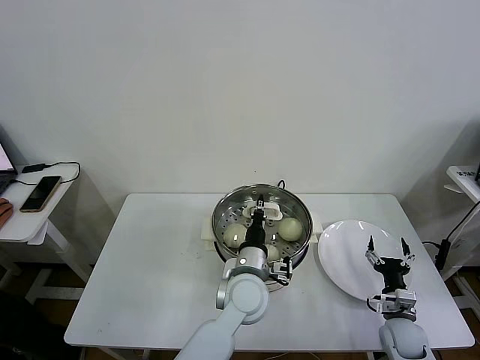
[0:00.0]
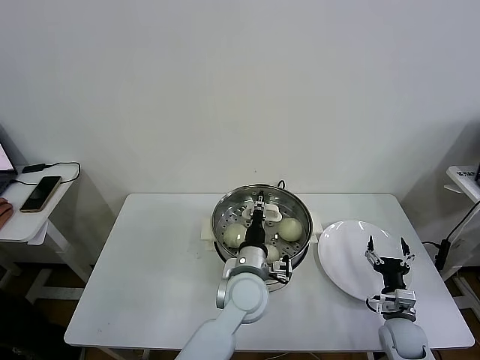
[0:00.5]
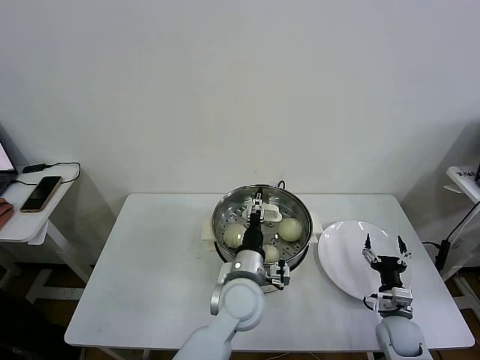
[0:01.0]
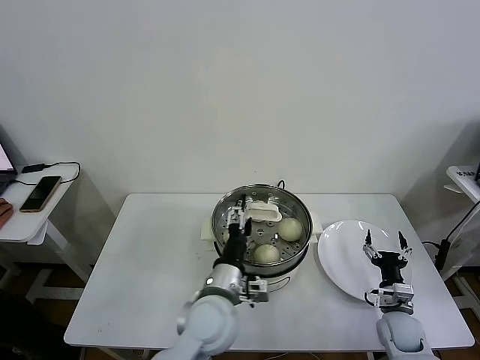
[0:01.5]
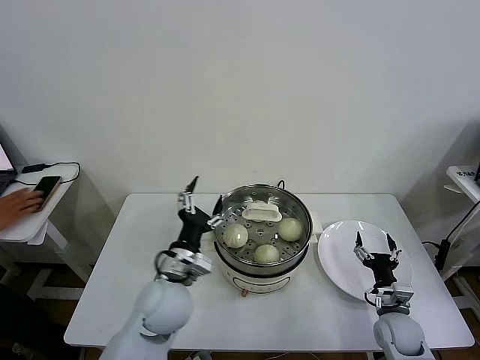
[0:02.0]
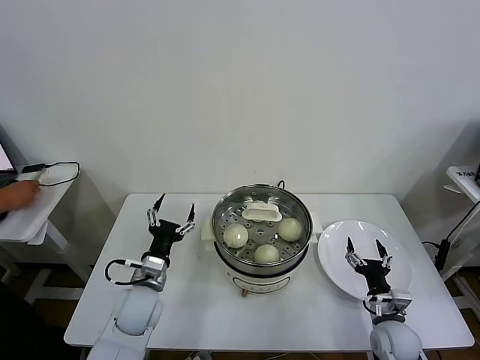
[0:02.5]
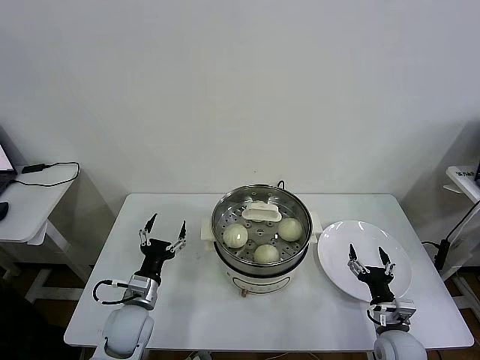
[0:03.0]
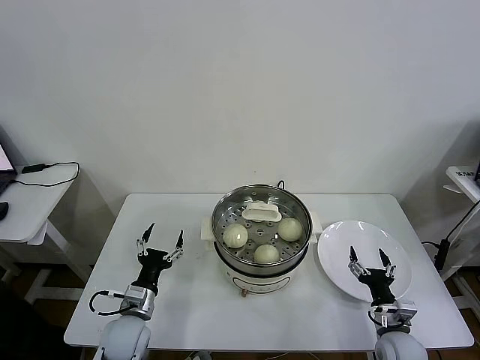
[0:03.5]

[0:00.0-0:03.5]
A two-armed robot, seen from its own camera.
Task of the whole recording: take steamed baozi put them in steamer then cover it.
0:00.0 to 0:02.0: The left gripper moves to the left, about 15 cm, and opens up.
0:02.0 to 0:03.5: The left gripper heads downward and to the left, covering some 20 cm.

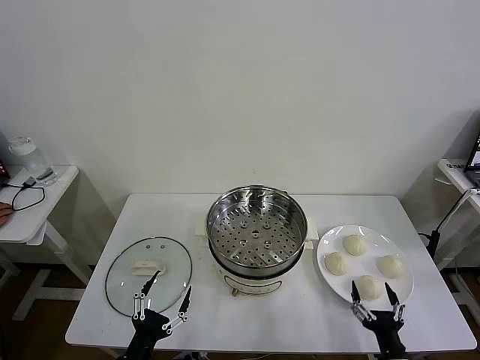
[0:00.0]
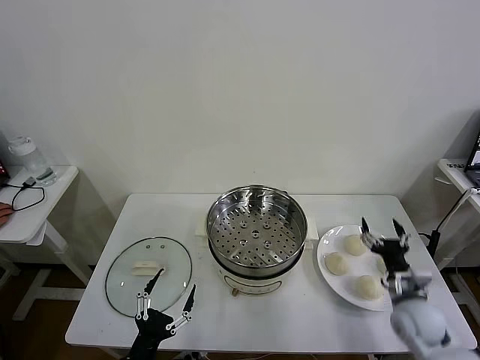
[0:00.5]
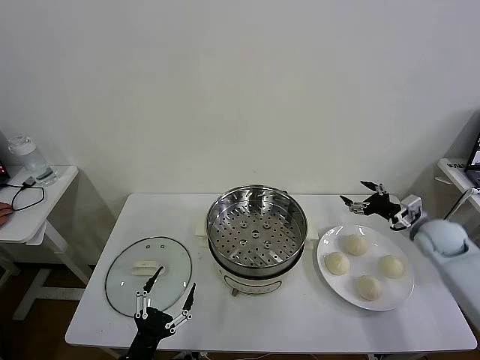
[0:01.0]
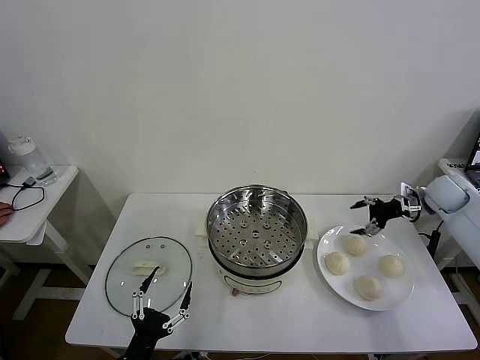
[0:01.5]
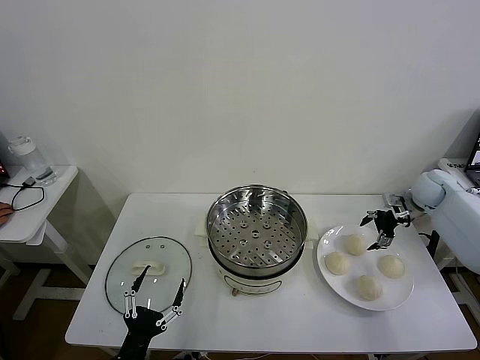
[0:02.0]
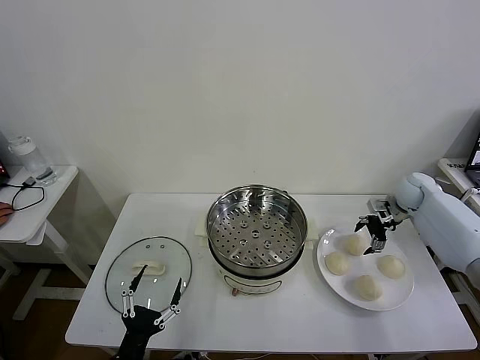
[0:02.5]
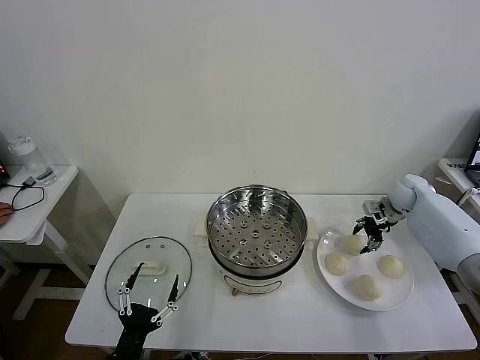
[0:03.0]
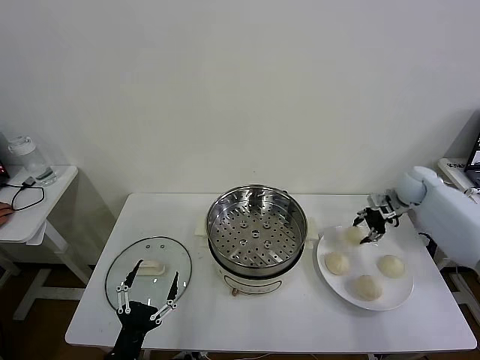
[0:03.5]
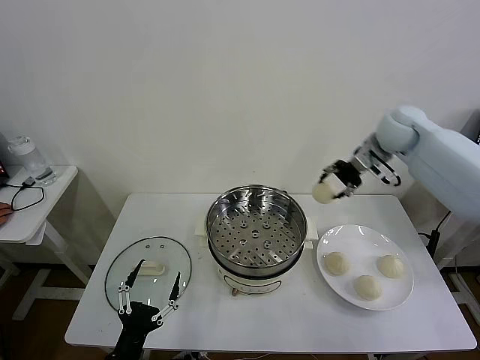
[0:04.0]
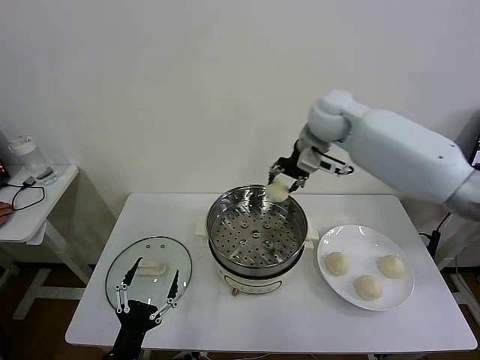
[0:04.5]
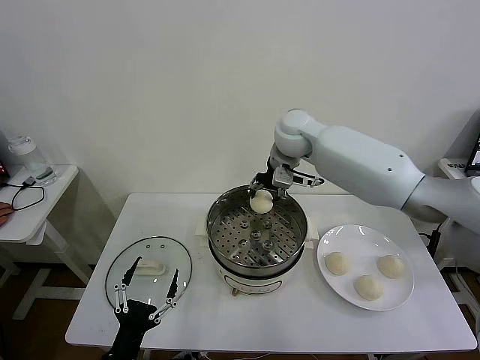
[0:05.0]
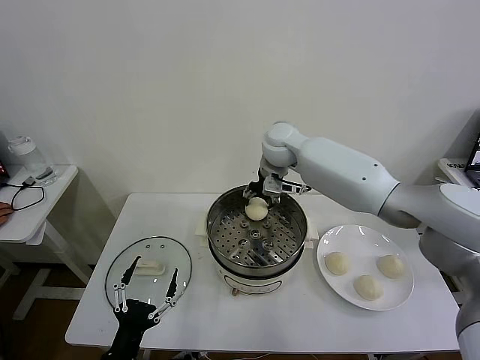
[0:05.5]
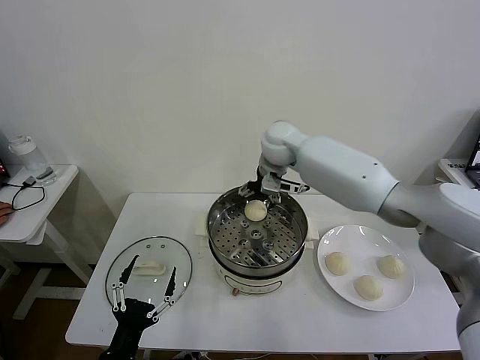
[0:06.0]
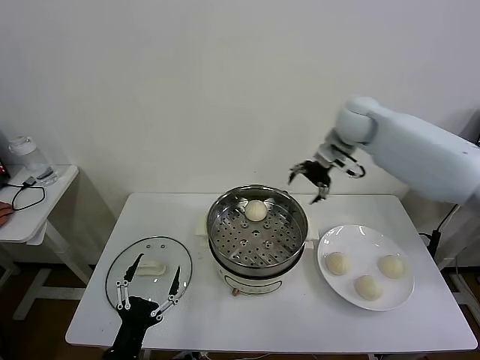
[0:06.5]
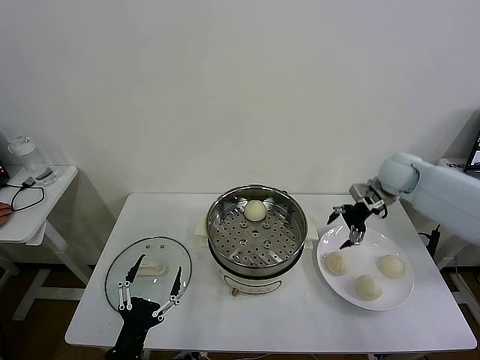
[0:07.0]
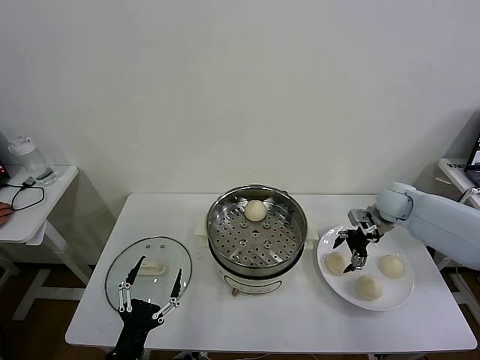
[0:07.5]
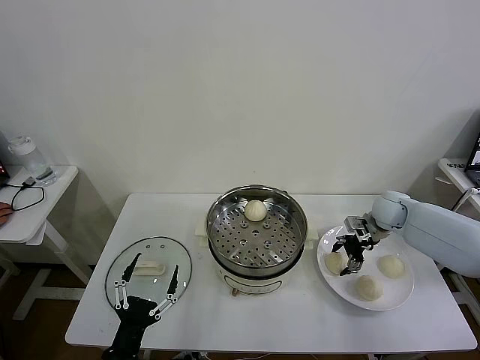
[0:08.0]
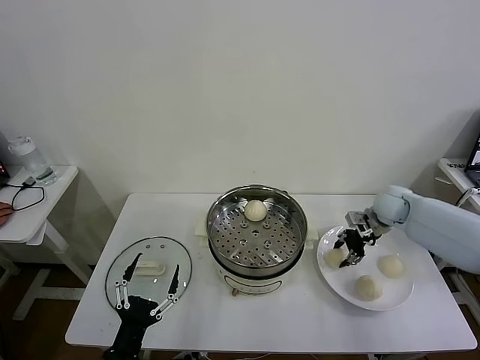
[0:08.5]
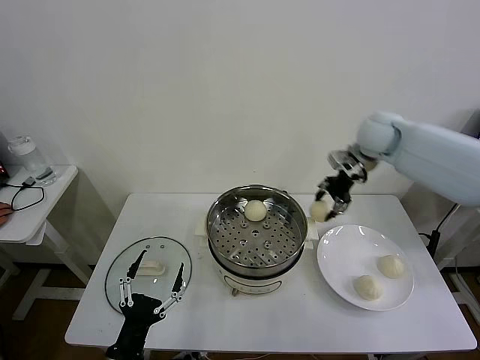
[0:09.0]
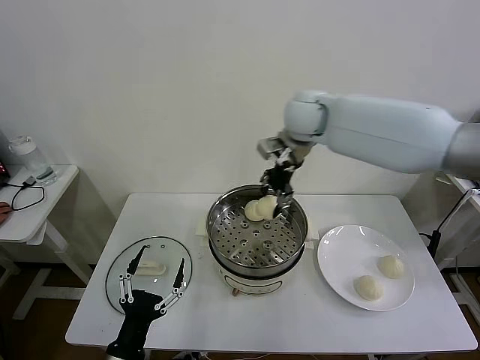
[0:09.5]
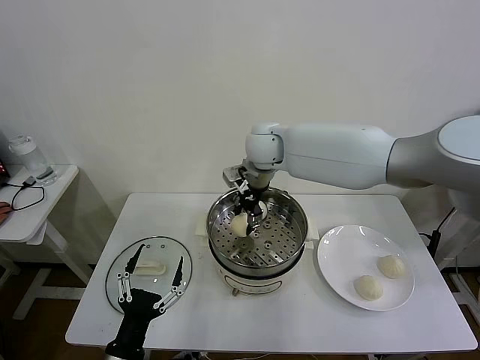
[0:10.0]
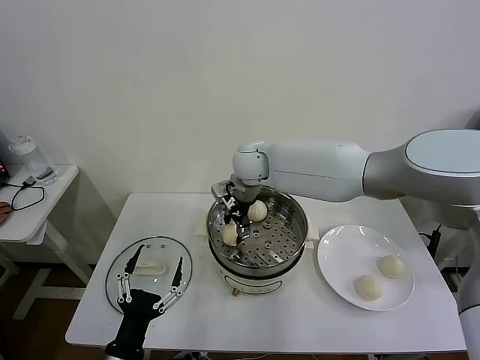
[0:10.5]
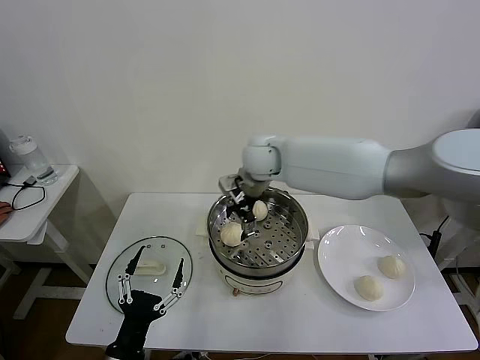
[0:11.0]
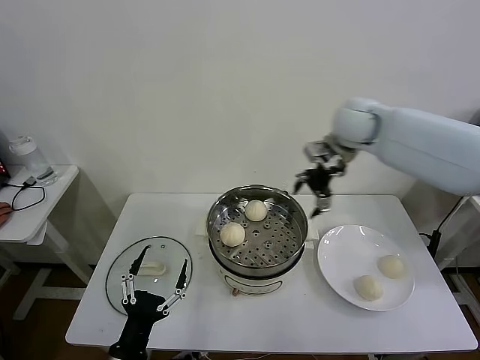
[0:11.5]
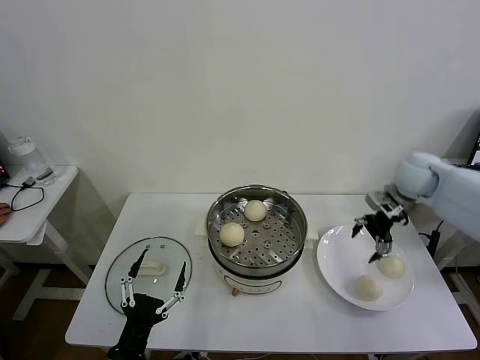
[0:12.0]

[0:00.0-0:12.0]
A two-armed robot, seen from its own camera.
Task of the whole recording: take steamed baozi put them in steamer then cover it.
Step, 0:00.0 to 0:03.0: Grasp the baozi in the plate with right gripper.
Step, 0:03.5 to 0:05.5: Place the baozi on the steamer with right gripper.
Step, 0:06.0 to 0:08.0: Grasp the baozi in the plate with right gripper.
Step, 0:08.5 to 0:11.0: Place the baozi on the steamer with right gripper.
0:02.0 to 0:04.0: The right gripper is displaced upward and to the left by about 25 cm, and closes its fingers.
0:04.0 to 0:06.0: The right gripper is displaced to the left by approximately 20 cm, and opens.
0:06.0 to 0:08.0: The right gripper heads to the right and downward, covering about 35 cm, and closes up.
0:08.0 to 0:10.0: The right gripper heads to the left and upward, covering some 40 cm.
0:10.0 to 0:12.0: The right gripper heads to the right, covering about 35 cm, and opens its fingers.

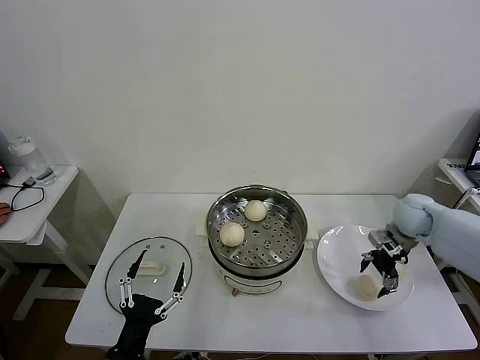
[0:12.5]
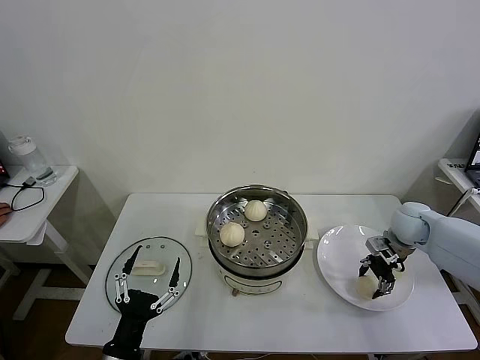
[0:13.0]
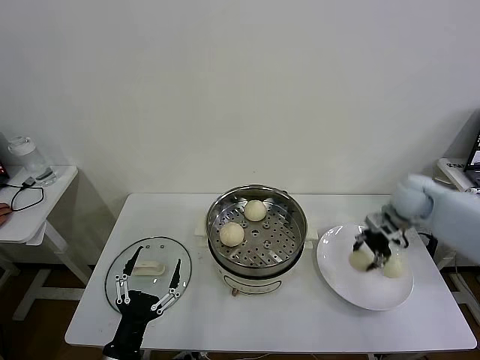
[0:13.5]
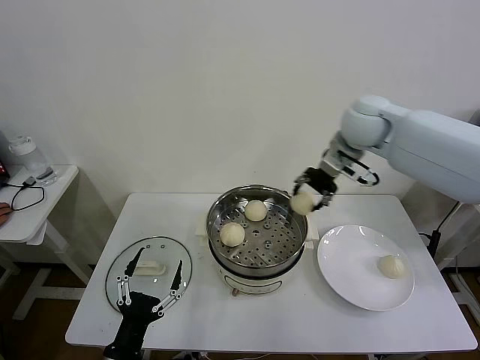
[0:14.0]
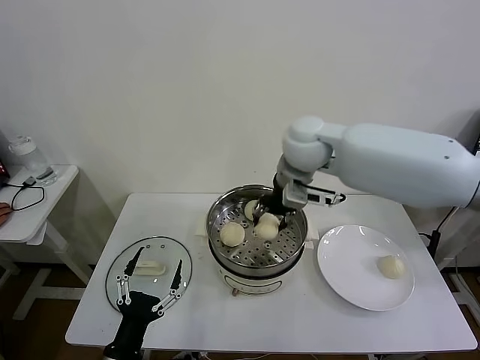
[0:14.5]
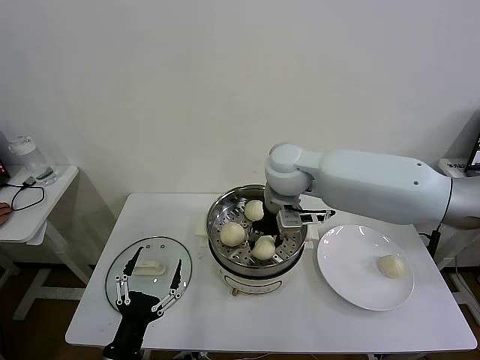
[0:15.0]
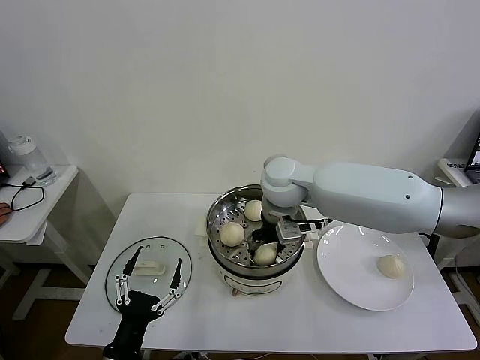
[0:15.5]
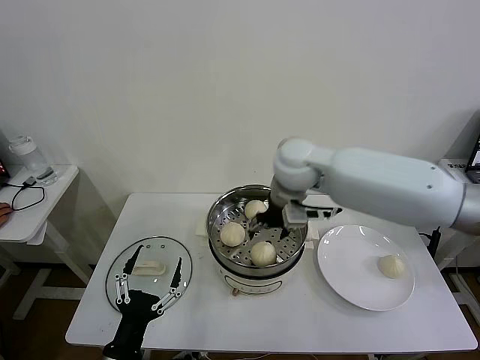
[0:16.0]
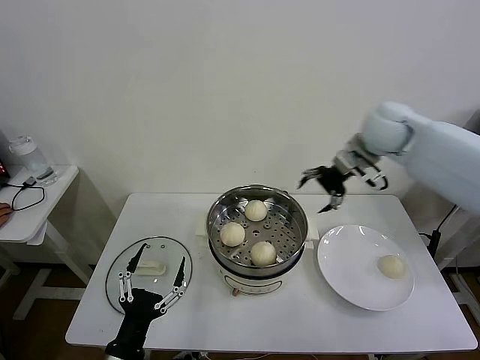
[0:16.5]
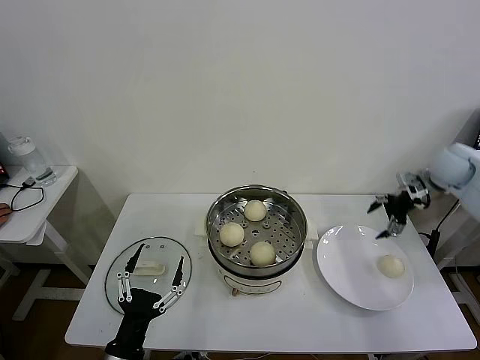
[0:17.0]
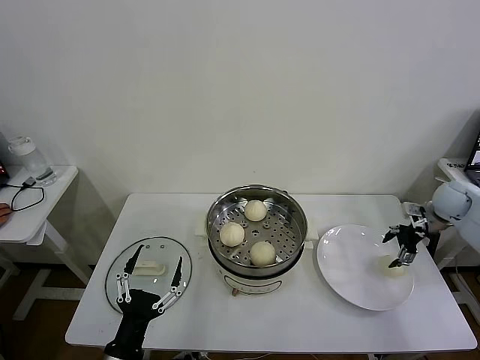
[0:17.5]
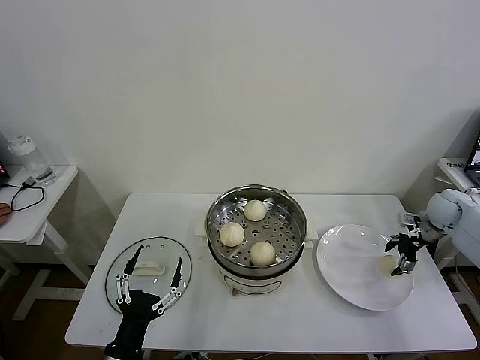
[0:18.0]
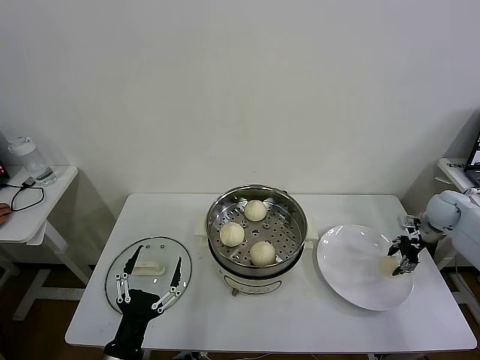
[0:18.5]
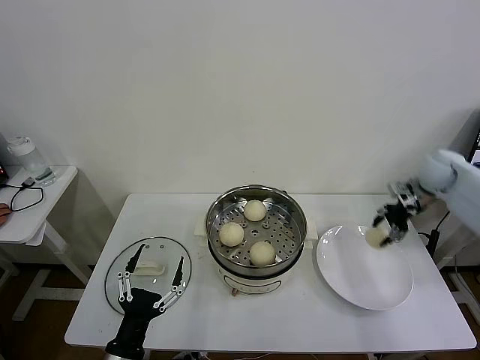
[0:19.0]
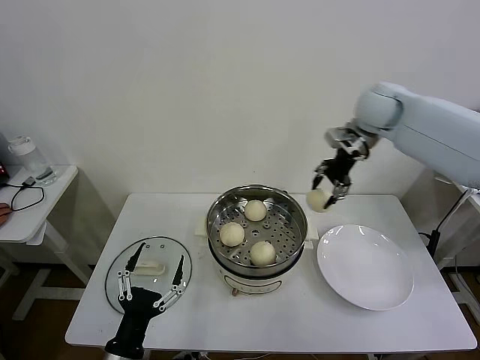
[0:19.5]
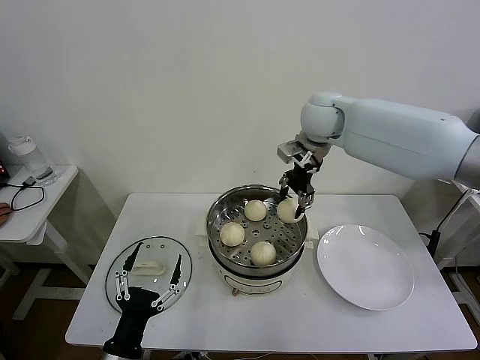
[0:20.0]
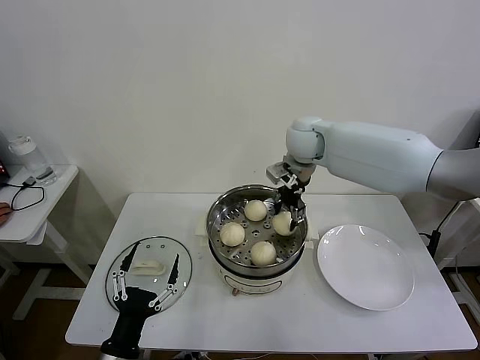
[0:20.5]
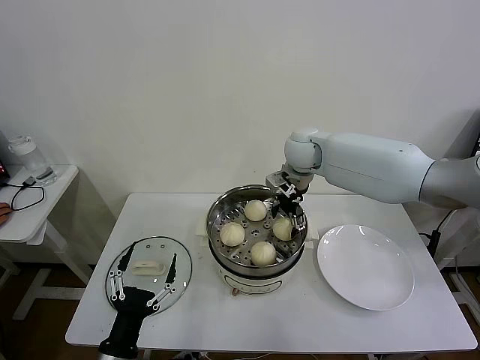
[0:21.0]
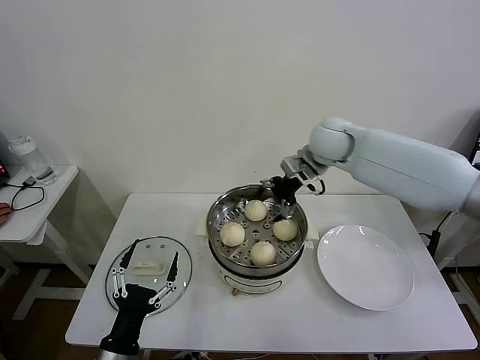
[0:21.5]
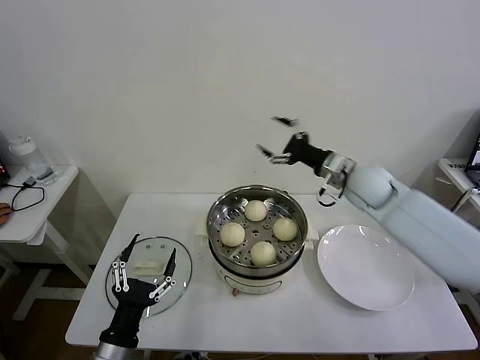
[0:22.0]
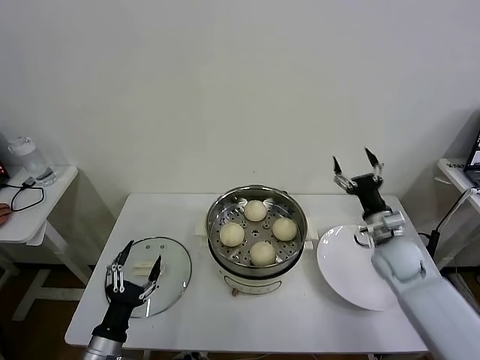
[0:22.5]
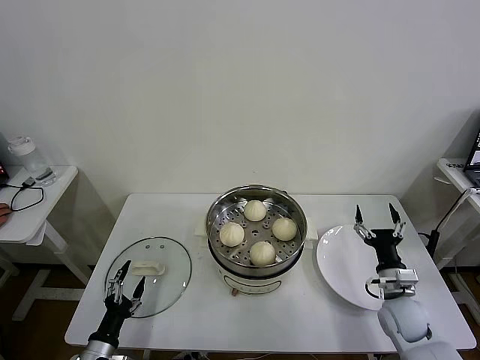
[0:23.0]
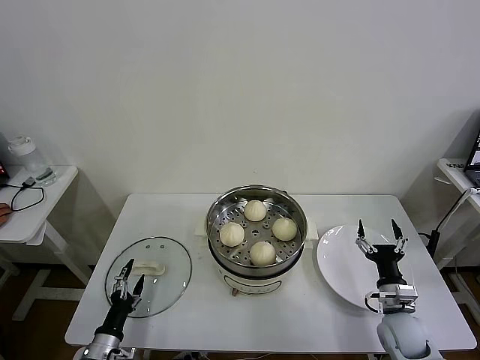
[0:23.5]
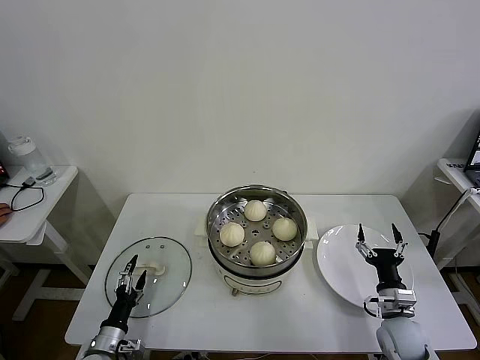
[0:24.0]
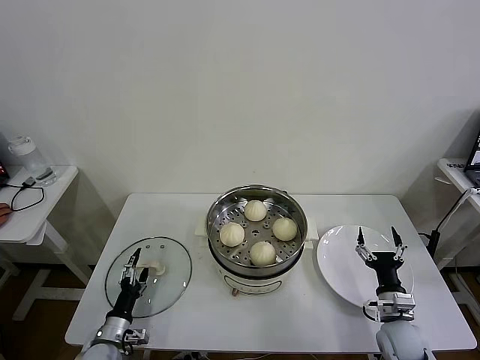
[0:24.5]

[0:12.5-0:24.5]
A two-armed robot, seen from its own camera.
Task of the whole recording: take steamed baozi put them in steamer then cover it.
Step, 0:13.5 to 0:15.5: Place the baozi on the steamer with right gripper.
Step, 0:16.0 to 0:18.5: Grasp the baozi in the plate with right gripper.
Step, 0:19.0 to 0:21.0: Place the baozi on the steamer with right gripper.
0:12.5 to 0:14.5: The right gripper moves to the left and upward, about 35 cm, and closes its fingers.
0:14.5 to 0:16.5: The right gripper moves to the right, roughly 20 cm, and opens.
0:16.5 to 0:18.5: The right gripper heads downward and to the right, covering roughly 30 cm, and closes its fingers.
0:18.5 to 0:20.5: The right gripper moves to the left and upward, approximately 40 cm.
0:20.5 to 0:22.5: The right gripper heads to the right, downward and backward, covering roughly 35 cm, and opens, while the left gripper changes place by roughly 5 cm.
0:22.5 to 0:24.5: The right gripper is displaced backward and downward by about 20 cm. The left gripper travels downward and forward by approximately 15 cm.
